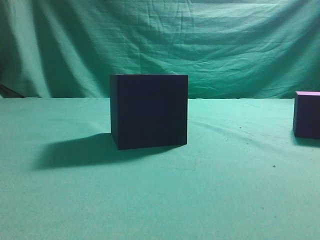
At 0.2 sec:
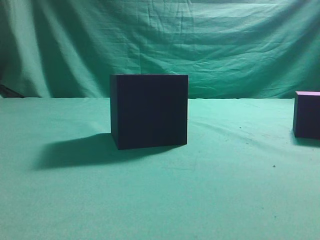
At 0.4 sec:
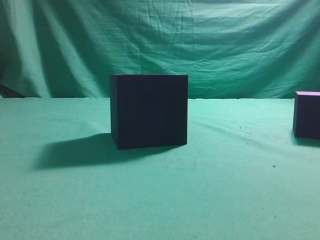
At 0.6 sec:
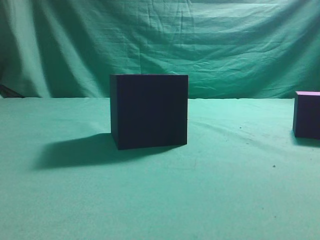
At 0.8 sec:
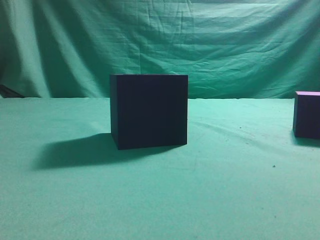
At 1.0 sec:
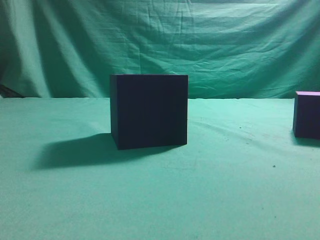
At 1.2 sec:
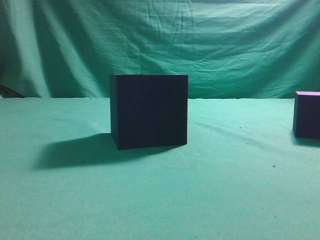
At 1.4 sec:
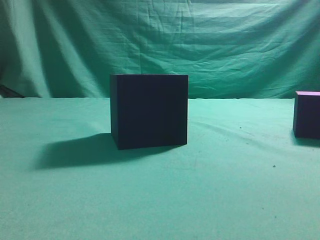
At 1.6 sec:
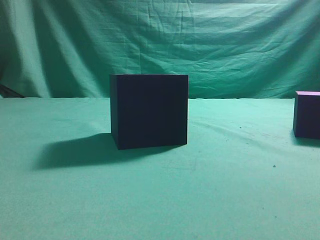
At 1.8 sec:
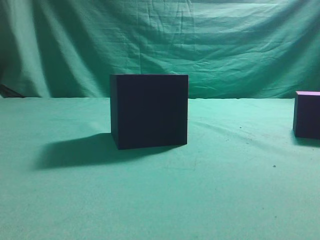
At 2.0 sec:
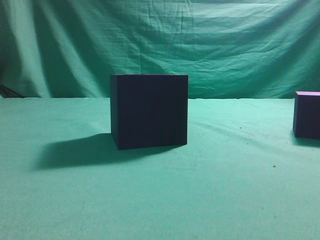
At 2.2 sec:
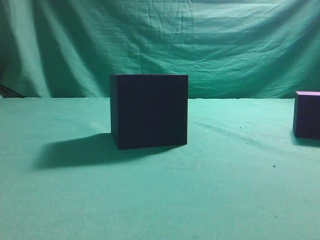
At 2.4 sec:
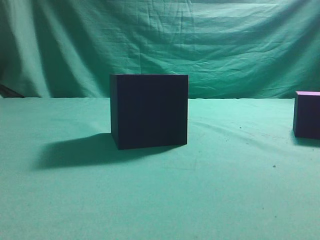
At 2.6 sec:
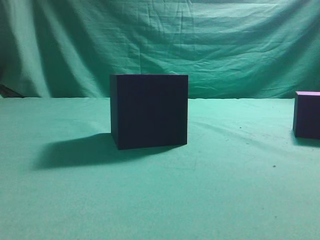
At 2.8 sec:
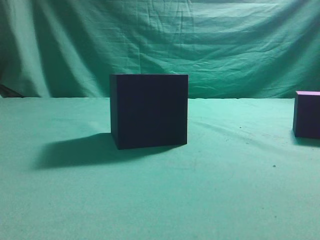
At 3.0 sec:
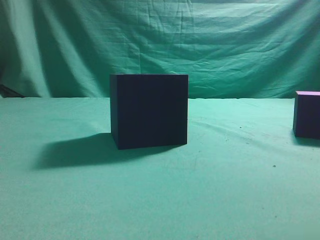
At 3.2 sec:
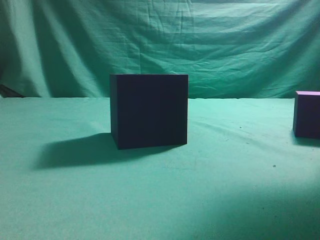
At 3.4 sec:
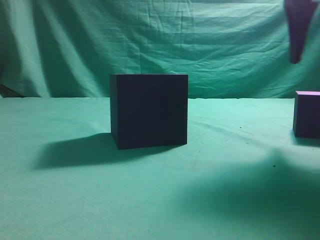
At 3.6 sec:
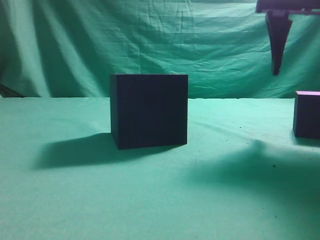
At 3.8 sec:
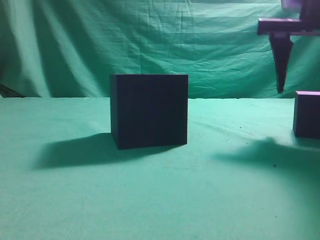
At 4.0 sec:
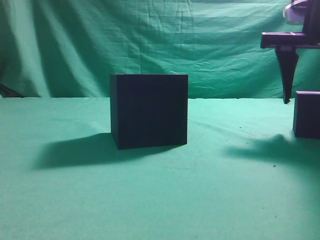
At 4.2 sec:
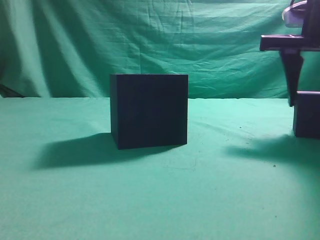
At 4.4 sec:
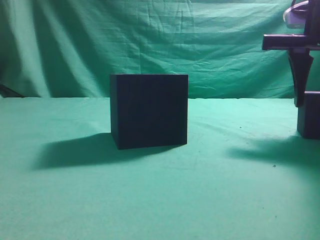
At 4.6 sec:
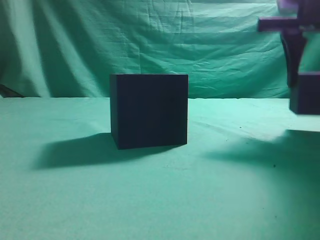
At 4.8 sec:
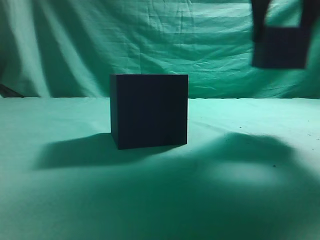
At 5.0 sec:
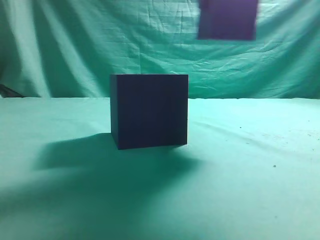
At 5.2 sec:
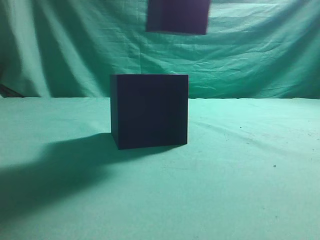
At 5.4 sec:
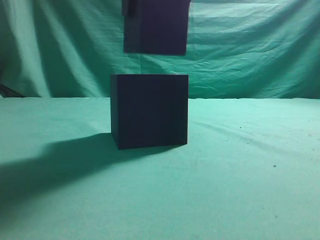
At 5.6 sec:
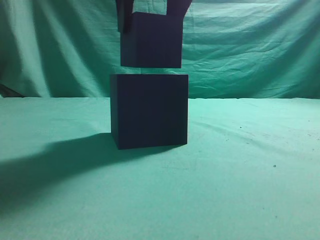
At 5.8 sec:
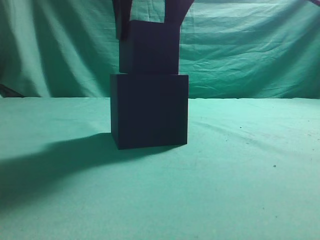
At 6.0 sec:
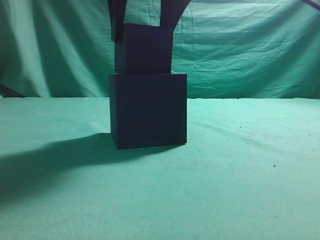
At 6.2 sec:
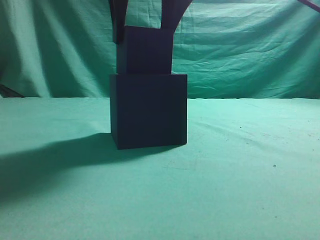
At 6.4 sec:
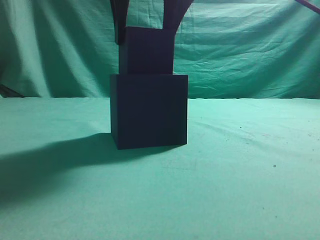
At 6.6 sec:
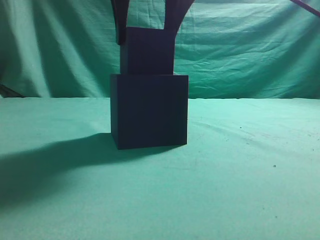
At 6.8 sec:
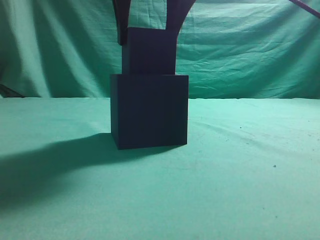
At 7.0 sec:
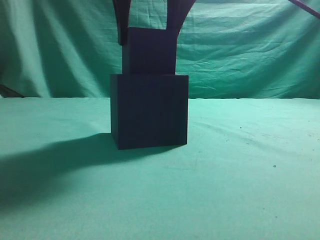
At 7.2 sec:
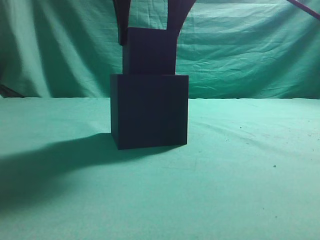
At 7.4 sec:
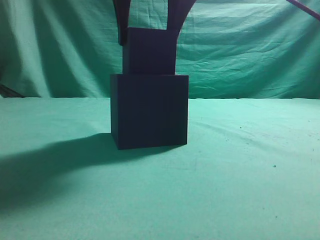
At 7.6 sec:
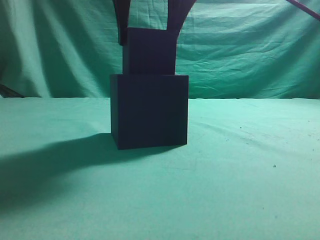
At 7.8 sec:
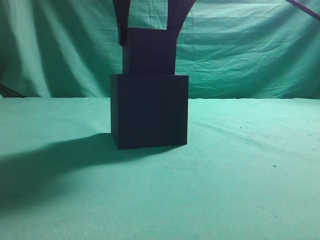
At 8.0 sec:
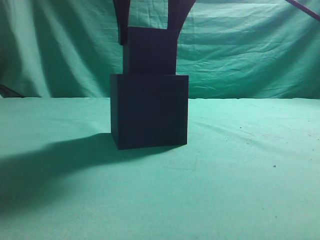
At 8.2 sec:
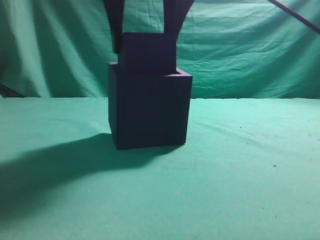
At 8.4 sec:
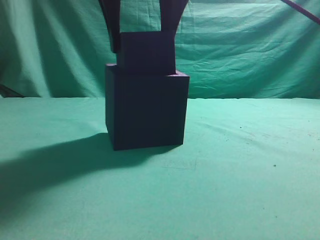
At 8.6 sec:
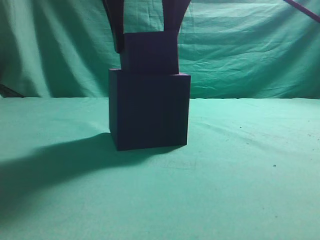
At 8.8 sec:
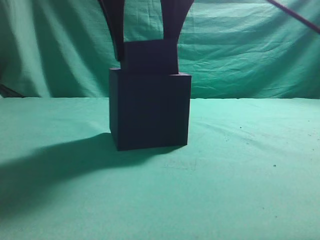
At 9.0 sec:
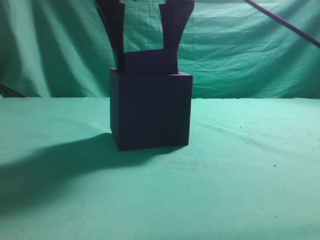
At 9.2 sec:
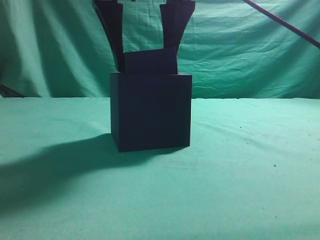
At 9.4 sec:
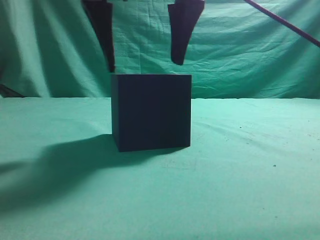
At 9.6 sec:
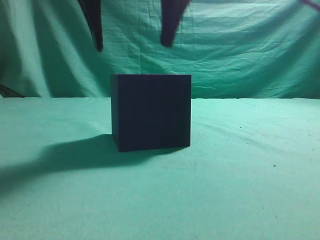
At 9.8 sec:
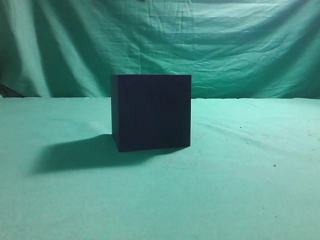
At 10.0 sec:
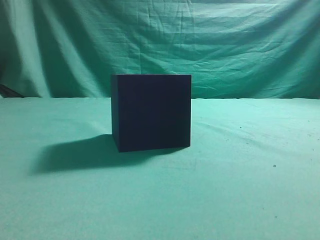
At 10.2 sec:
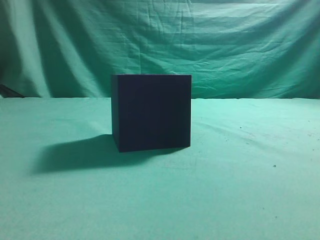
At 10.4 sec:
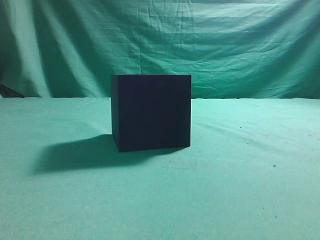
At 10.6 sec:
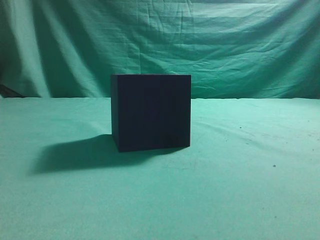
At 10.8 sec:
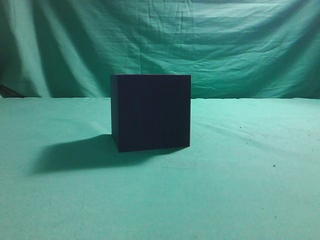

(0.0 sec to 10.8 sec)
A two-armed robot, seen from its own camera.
Task of the whole recording: pick up the cube block and place it into the cube groove.
Step, 0.0 sec - 4.6 sec: Grasp the cube.
Step, 4.8 sec - 9.6 sec: Place cube into the cube-shaped recess.
3.0 sec - 4.6 sec: The right gripper shifts some 10 cm forward and downward, and opens its fingers.
4.6 sec - 6.2 sec: The right gripper moves to the left, roughly 20 cm.
6.2 sec - 9.2 sec: The grippers move only a little.
9.2 sec - 10.8 sec: The right gripper is displaced to the right, upward and backward by about 30 cm, and closes up.
